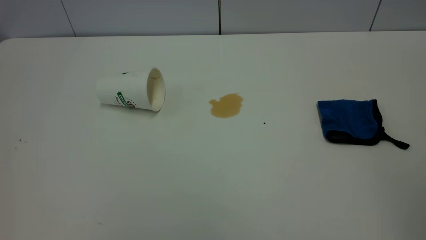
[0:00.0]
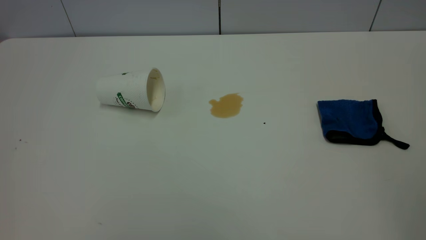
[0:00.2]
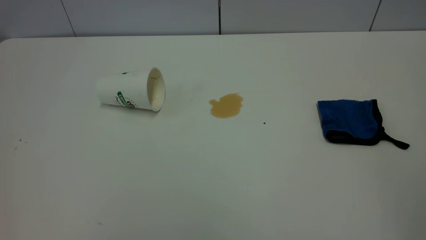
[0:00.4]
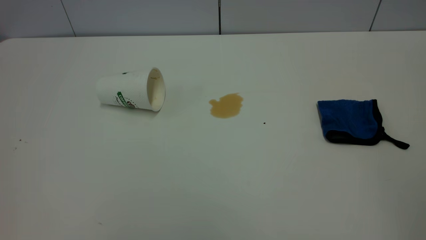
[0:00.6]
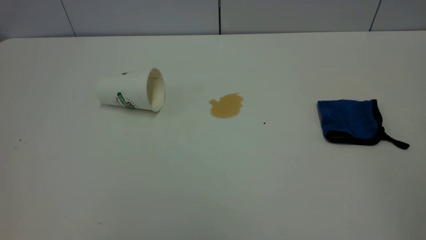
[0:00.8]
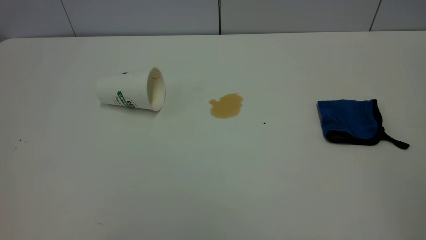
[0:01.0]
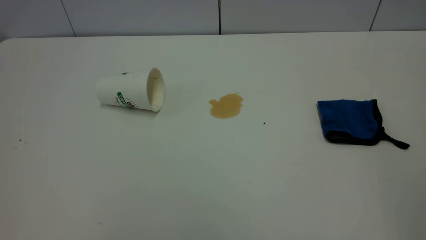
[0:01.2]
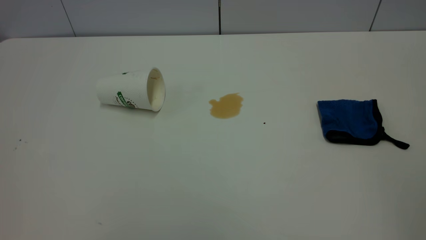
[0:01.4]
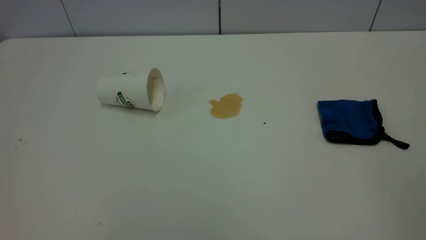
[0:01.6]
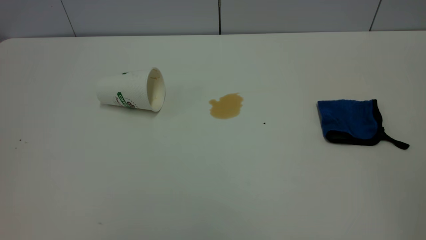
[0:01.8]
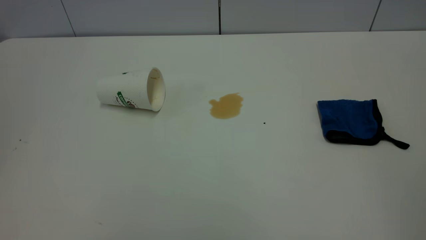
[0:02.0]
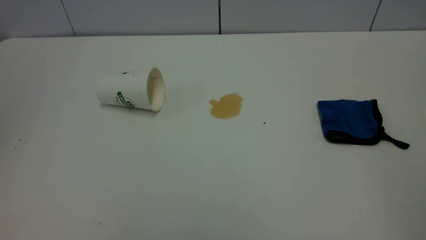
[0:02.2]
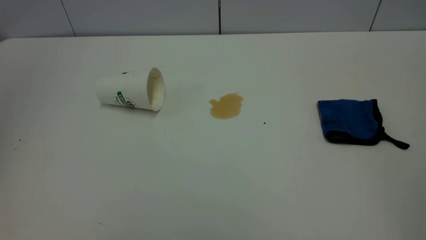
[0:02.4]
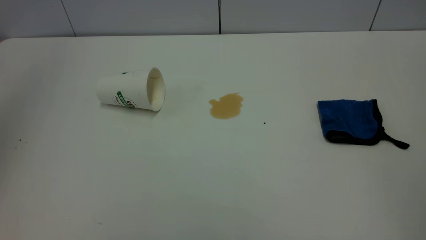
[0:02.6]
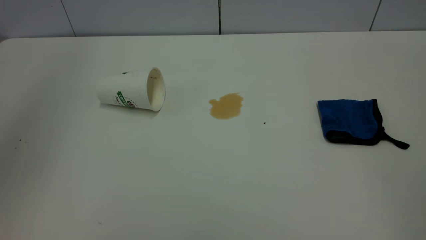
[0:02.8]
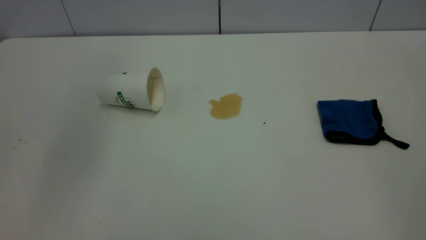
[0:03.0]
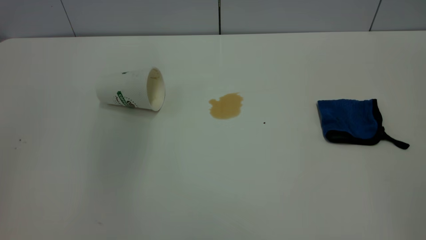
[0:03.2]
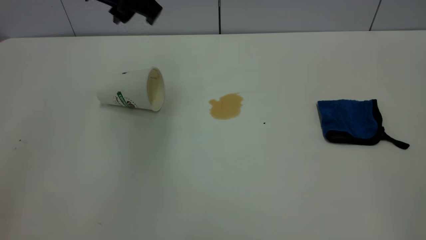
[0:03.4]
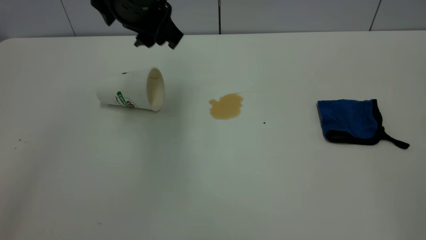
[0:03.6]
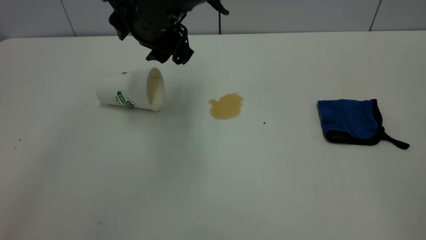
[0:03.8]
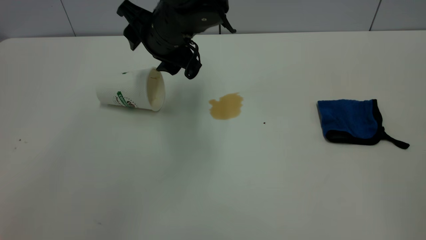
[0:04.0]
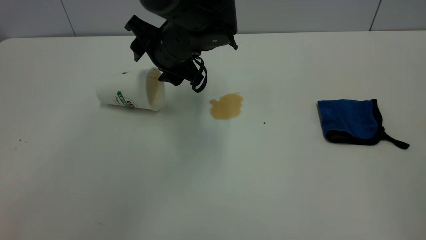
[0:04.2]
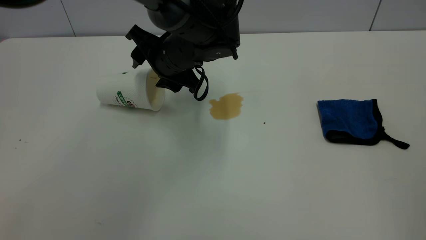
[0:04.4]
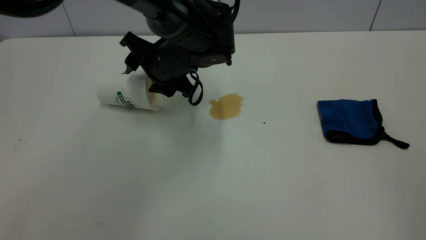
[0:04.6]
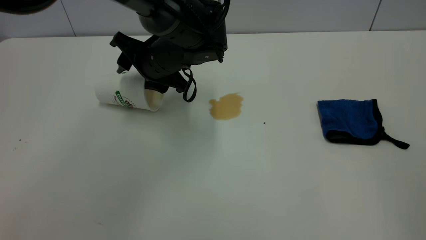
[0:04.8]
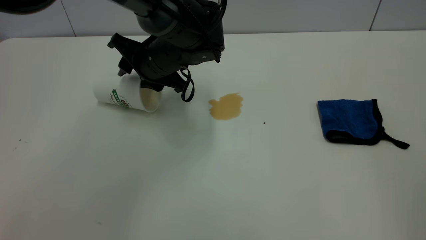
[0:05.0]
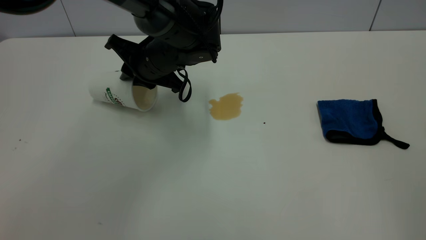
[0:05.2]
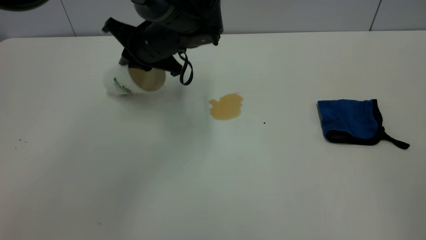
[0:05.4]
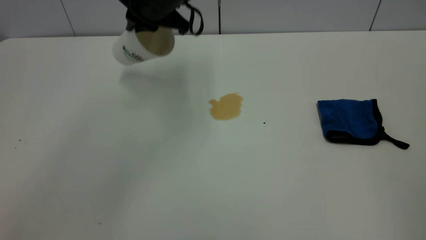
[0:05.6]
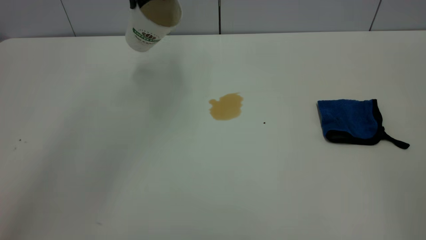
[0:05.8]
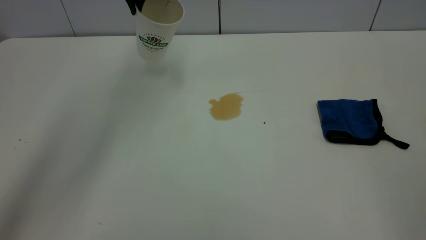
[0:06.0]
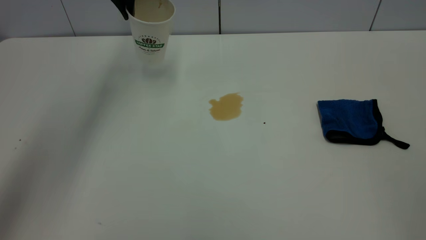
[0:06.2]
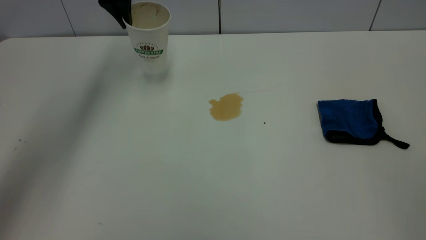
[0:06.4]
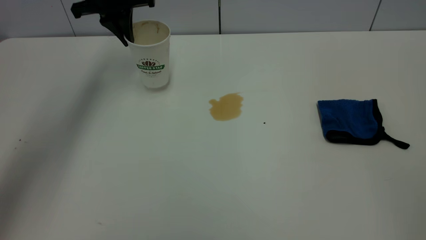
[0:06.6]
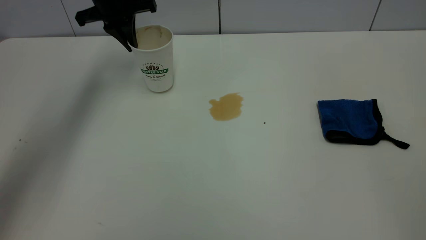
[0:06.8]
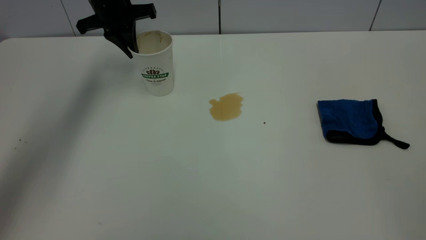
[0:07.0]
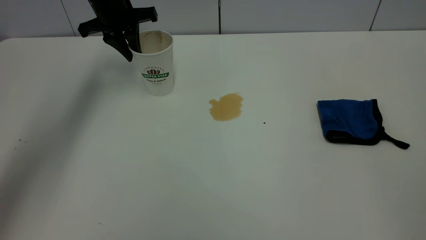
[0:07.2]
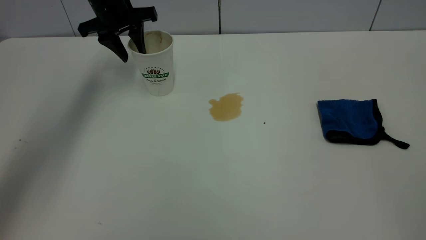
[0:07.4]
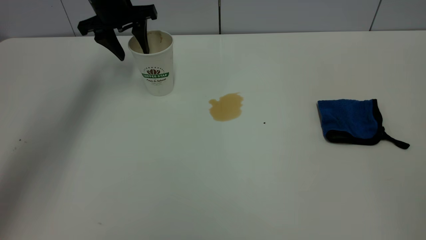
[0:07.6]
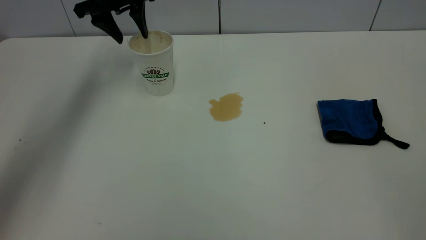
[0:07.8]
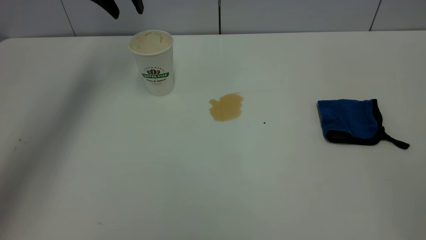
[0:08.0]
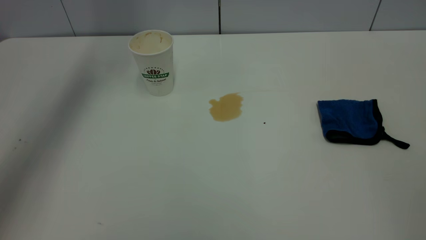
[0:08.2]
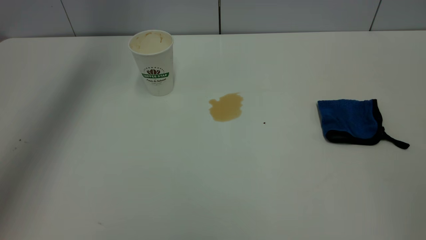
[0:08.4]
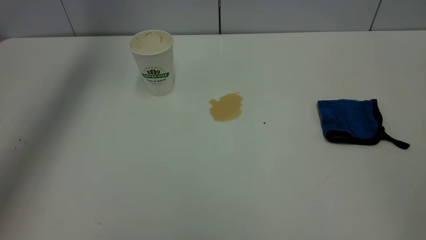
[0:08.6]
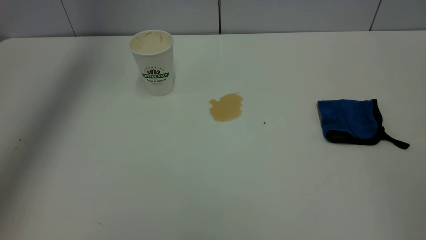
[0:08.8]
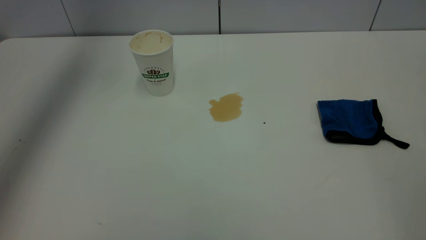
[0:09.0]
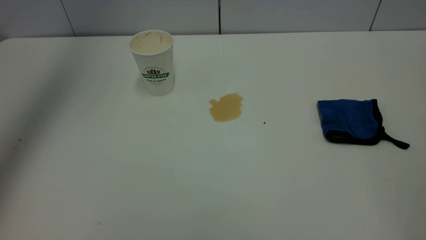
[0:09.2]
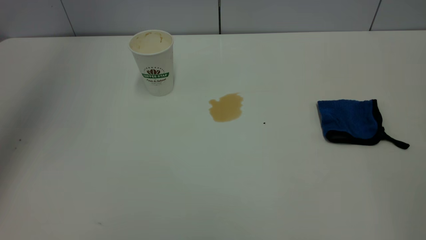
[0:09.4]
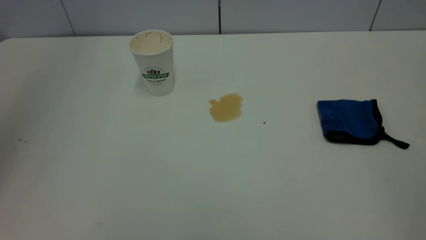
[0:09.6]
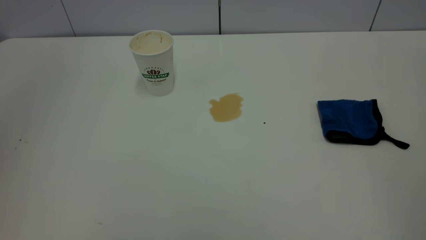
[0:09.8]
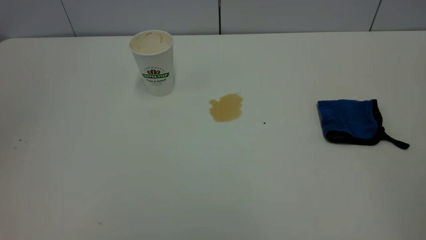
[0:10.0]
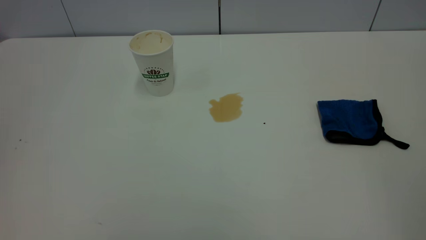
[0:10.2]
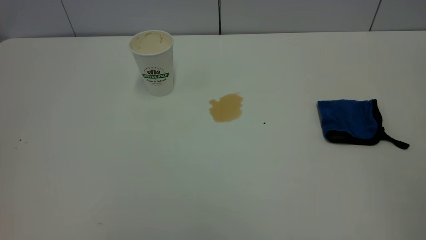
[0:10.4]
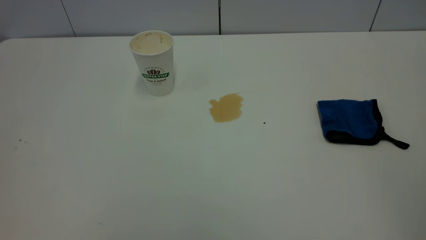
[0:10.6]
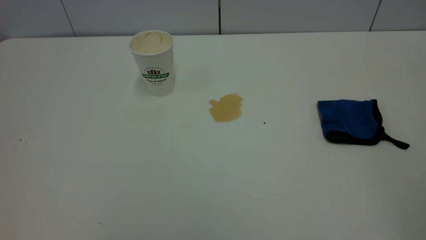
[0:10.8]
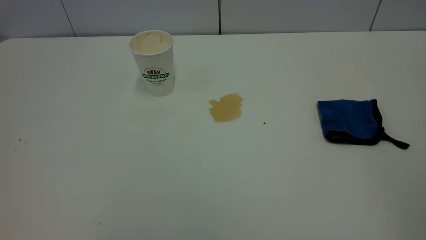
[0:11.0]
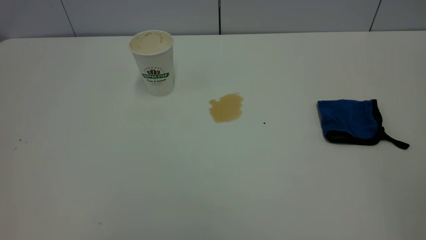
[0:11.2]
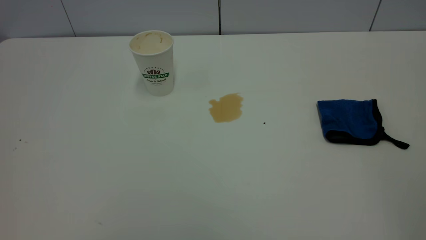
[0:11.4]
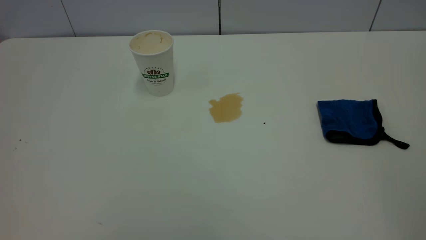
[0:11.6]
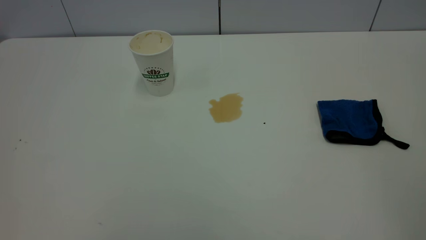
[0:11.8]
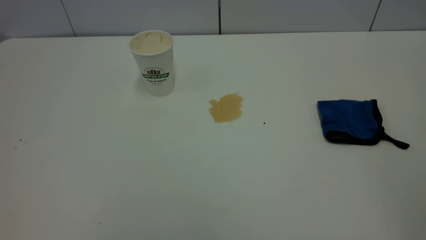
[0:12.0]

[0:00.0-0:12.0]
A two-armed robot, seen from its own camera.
Task of the whole recording: the left gripper pick up the fallen cup and place it upright, the right gripper grasp the blue rag and wipe the tea stain on the table, the right gripper put the blue rag back in its original position.
Step, 0:00.0 to 0:07.8: Stand the paper cup upright.
0:01.6 to 0:03.0: The left gripper shifts roughly 35 cm forward and to the right.
0:03.0 to 0:04.4: The left gripper goes about 30 cm downward, to the right and forward.
0:04.4 to 0:06.0: The left gripper goes about 20 cm upward, forward and to the left, and closes.
0:06.0 to 0:07.6: The left gripper shifts roughly 10 cm downward and to the left, and opens.
0:07.6 to 0:09.0: The left gripper is displaced upward by roughly 25 cm.
0:09.0 to 0:10.4: The left gripper moves backward, about 40 cm.

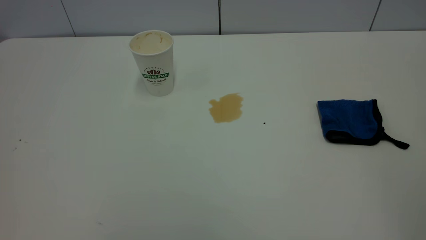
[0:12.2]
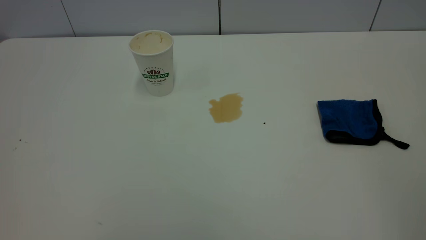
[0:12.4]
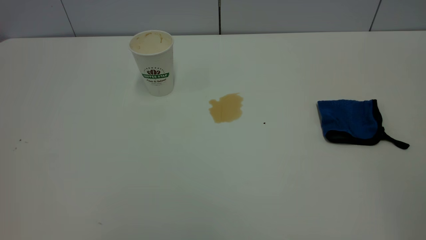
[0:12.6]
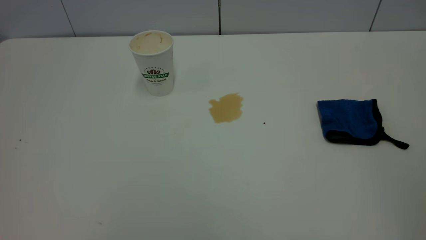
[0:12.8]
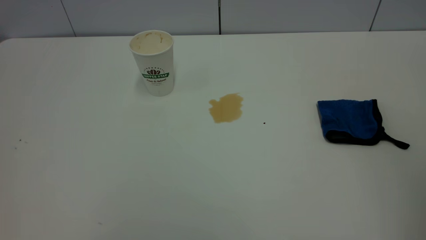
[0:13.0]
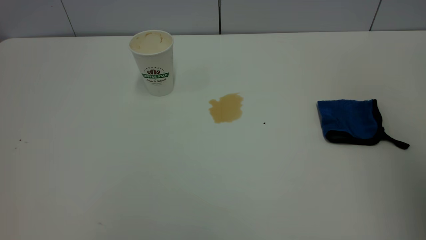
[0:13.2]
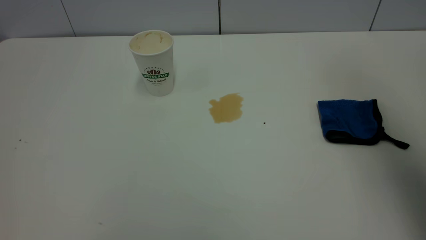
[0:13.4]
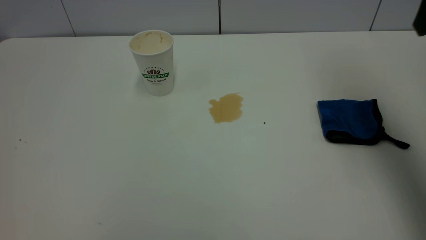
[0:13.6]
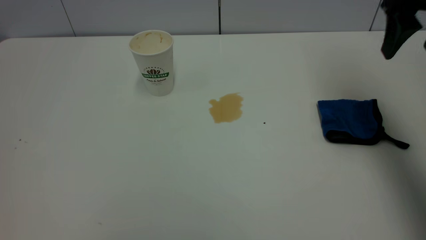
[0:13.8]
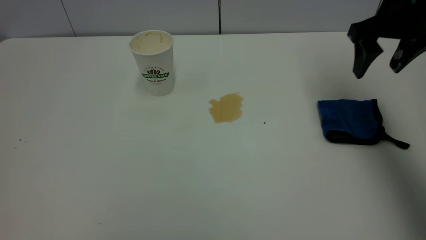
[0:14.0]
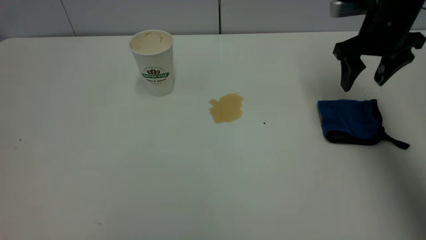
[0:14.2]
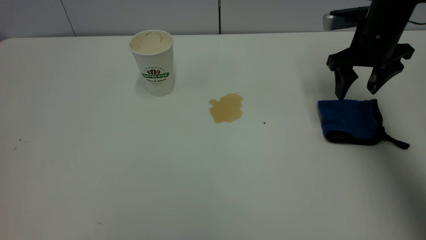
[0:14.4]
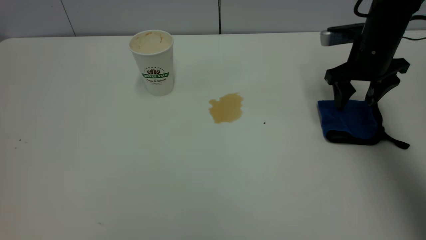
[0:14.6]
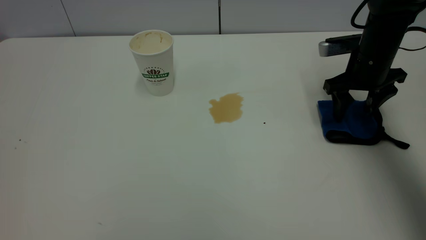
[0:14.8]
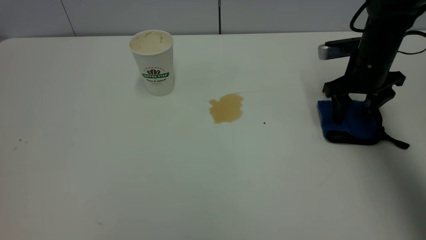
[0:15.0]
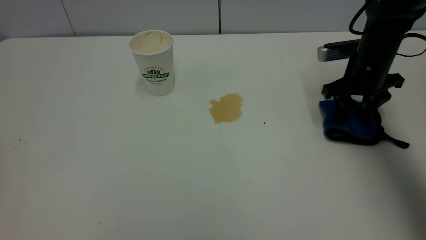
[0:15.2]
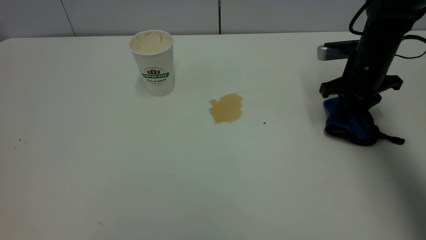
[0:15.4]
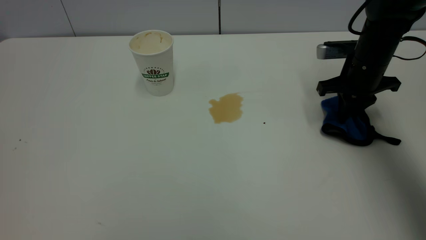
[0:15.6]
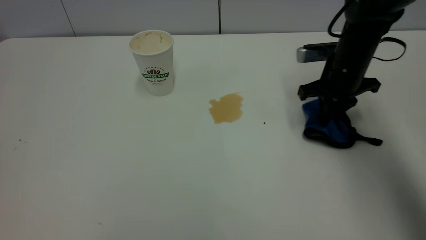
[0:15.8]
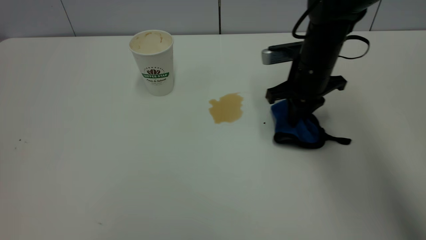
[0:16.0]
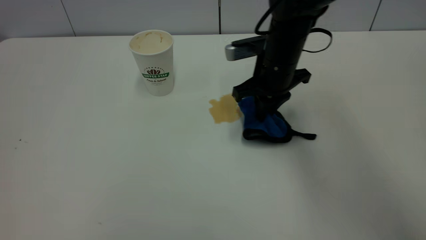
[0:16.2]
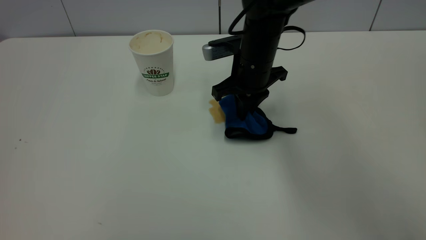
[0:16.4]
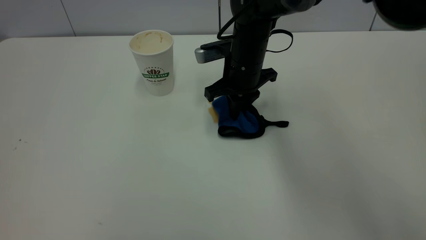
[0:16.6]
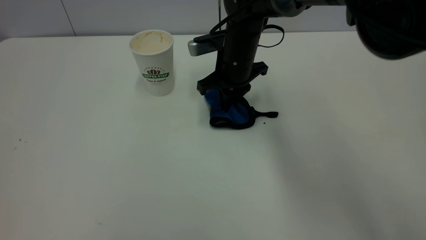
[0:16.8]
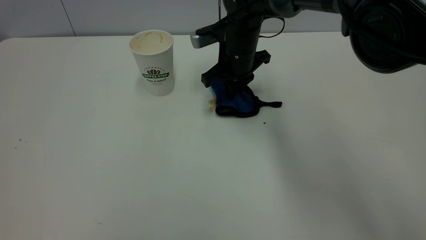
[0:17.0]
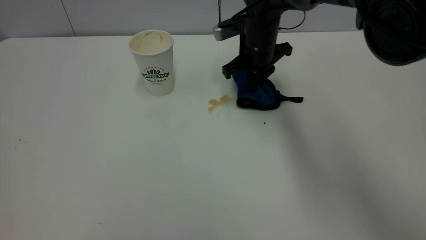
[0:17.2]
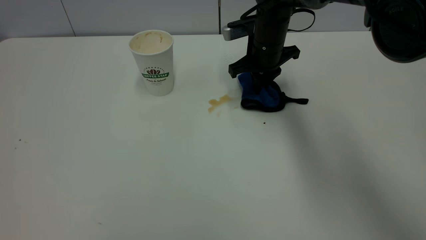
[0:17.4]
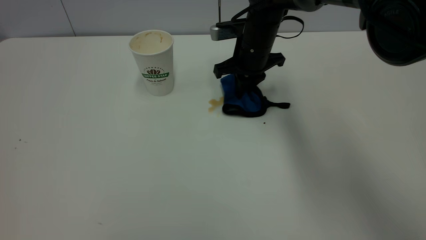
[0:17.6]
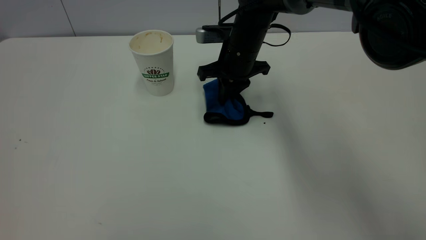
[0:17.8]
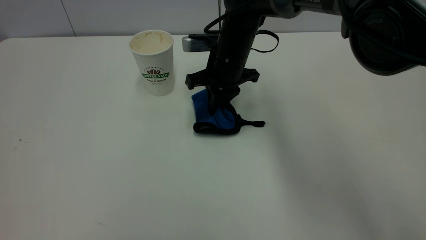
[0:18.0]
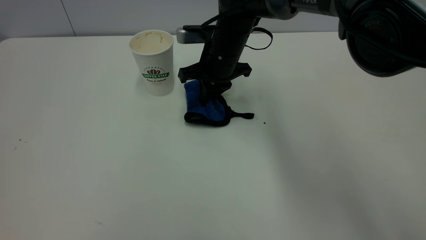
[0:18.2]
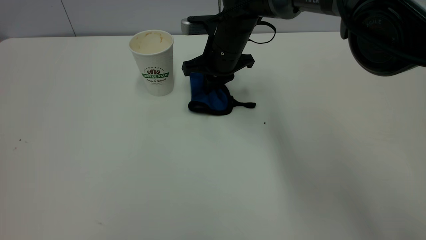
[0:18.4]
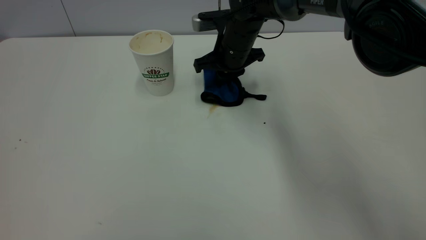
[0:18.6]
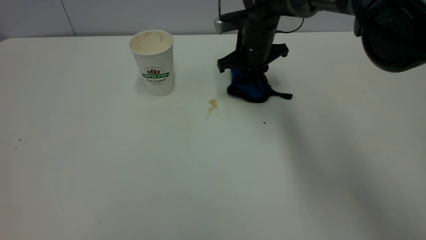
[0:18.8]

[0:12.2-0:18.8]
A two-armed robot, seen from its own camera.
Task of the whole recording: the left gripper pick up the fallen cup and place it upright, the right gripper grasp the blue rag and wipe the tea stain on the table, the right gripper put the blue rag back in its original position.
0:12.2 to 0:13.8: The right gripper goes roughly 40 cm forward.
0:13.8 to 0:15.4: The right gripper travels downward and forward by about 20 cm, and closes.
0:15.4 to 0:17.2: The right gripper goes roughly 20 cm to the left and forward.
